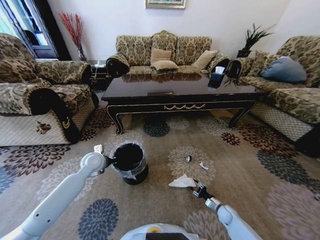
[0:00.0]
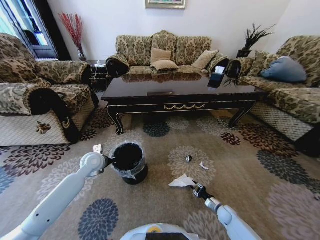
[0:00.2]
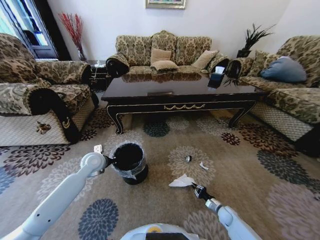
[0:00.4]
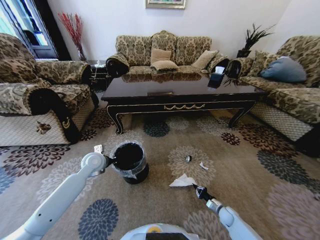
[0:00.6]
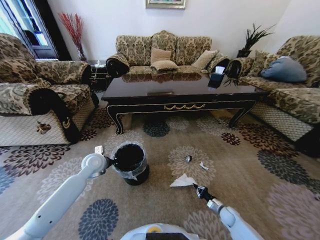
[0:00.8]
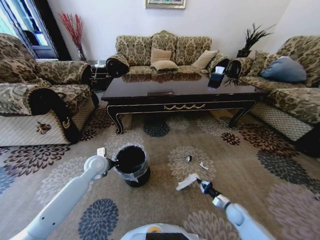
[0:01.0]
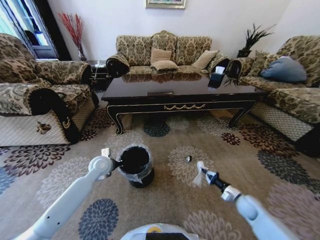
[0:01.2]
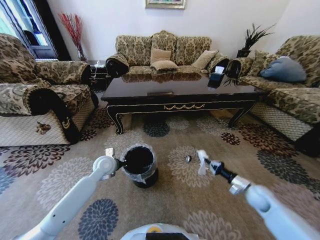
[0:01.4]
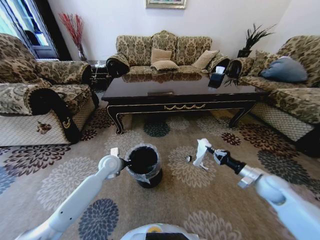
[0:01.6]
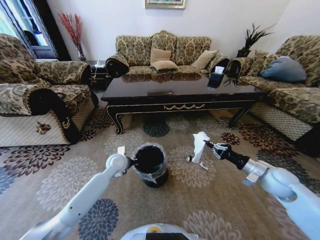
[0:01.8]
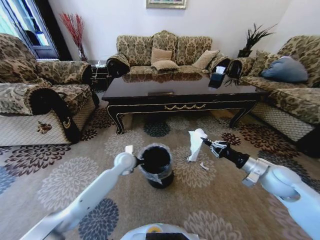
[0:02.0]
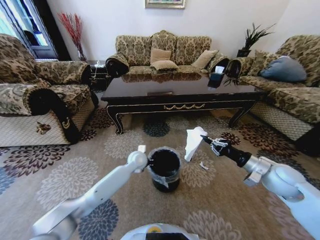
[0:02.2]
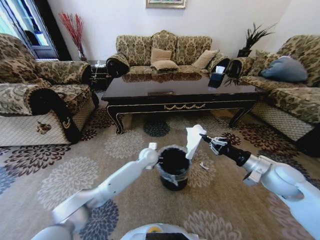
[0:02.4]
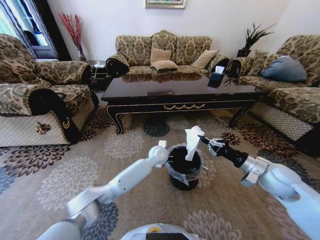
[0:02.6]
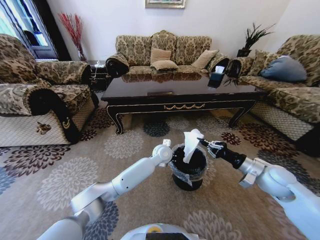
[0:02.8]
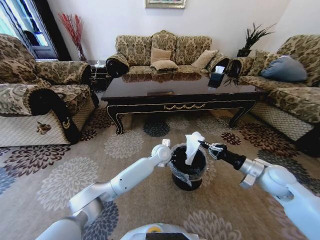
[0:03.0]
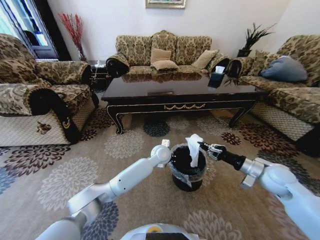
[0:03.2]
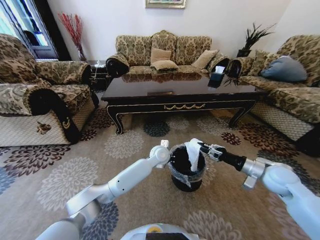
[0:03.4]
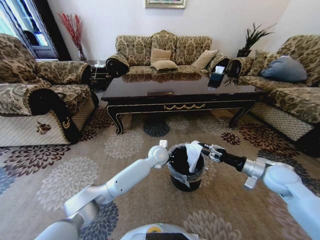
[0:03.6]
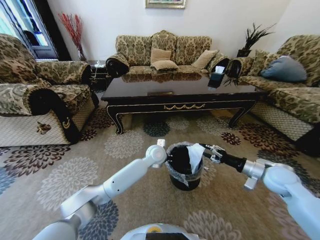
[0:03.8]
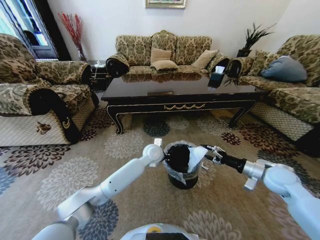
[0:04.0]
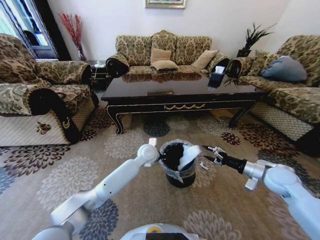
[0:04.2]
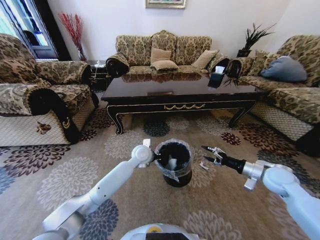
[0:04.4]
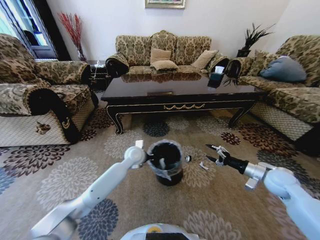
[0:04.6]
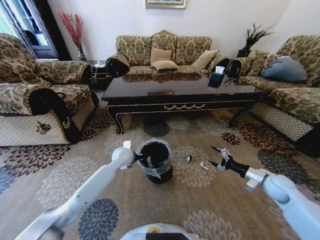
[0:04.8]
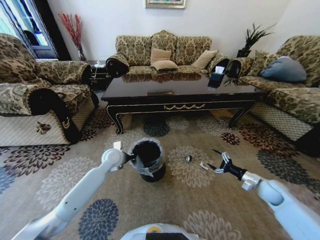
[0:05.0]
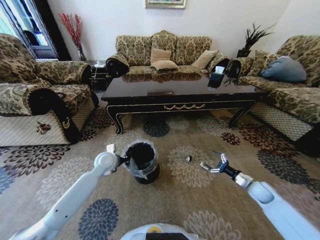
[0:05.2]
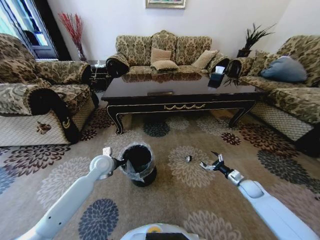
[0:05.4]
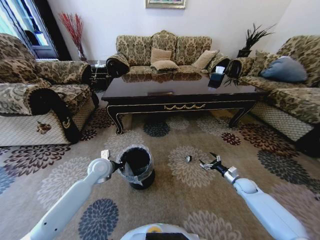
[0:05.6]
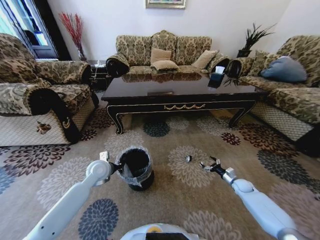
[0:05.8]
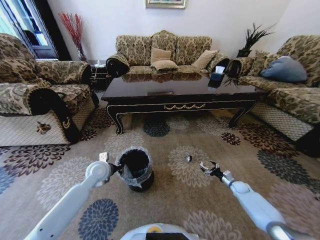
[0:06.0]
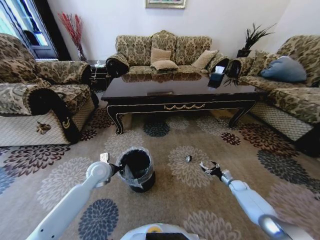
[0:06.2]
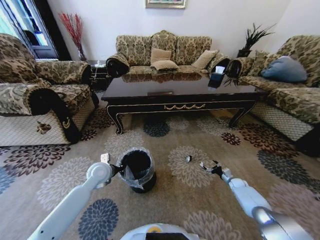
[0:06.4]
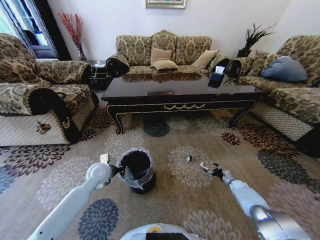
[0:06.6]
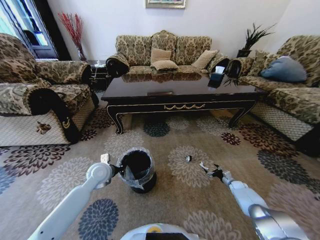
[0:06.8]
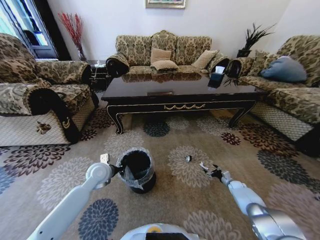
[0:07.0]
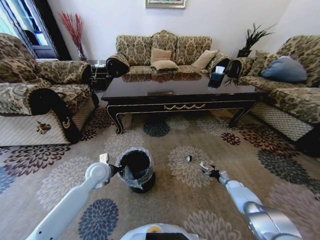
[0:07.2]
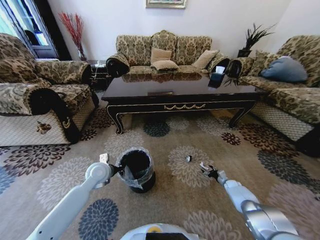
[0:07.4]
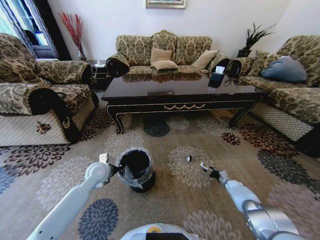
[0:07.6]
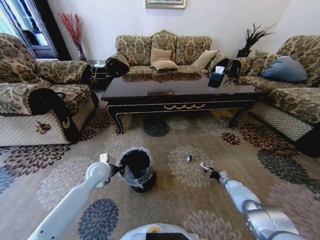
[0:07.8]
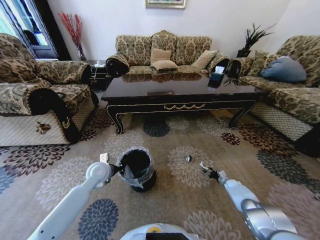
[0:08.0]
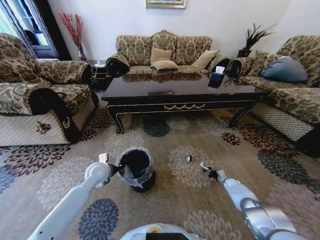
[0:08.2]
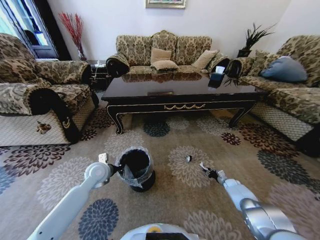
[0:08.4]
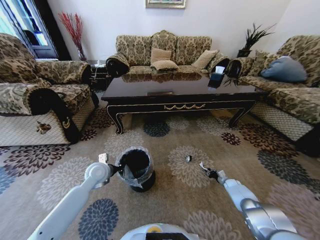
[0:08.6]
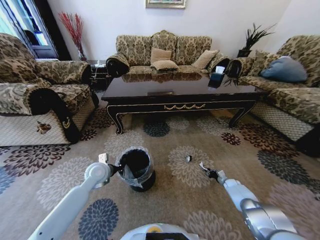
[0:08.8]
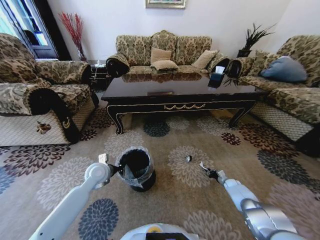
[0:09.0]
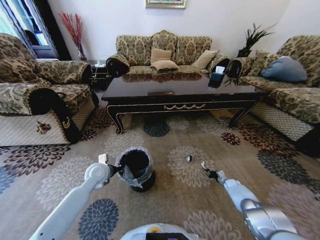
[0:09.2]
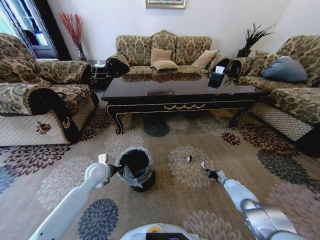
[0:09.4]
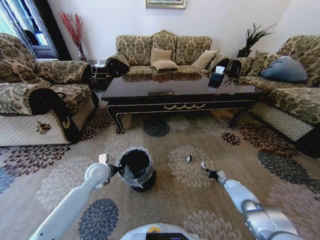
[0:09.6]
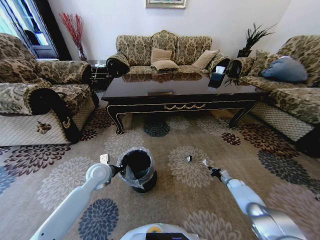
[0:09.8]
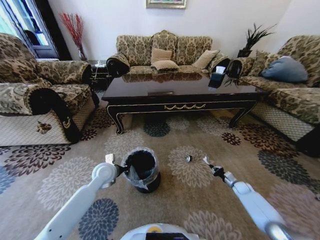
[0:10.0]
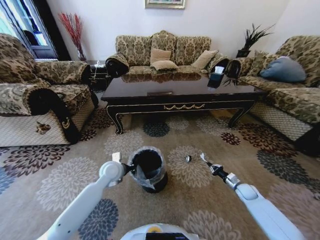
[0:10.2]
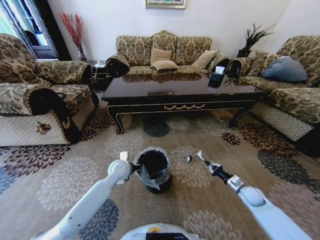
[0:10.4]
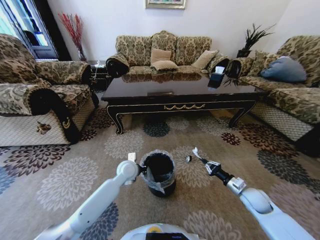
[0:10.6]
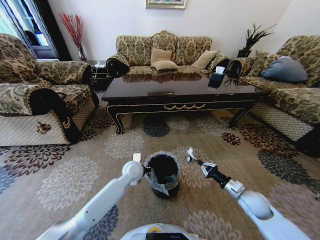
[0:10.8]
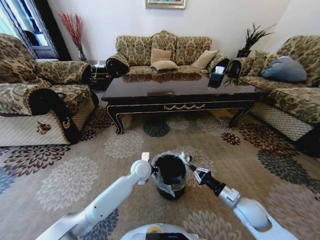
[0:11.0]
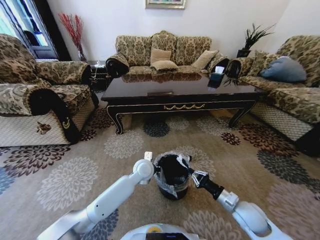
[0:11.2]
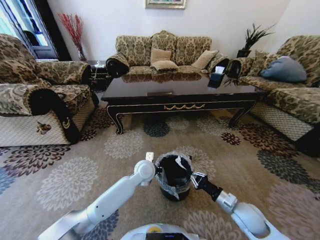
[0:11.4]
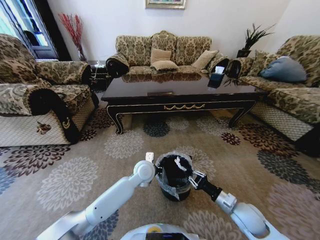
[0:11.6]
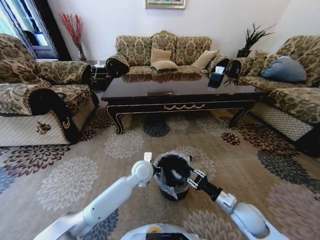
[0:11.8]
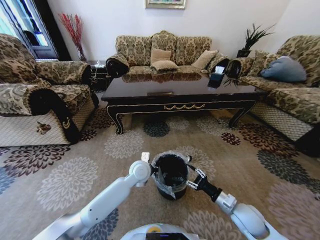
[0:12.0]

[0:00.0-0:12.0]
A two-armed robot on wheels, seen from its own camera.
Task of the whole recording: Move to the front of the table and pick up the trash from the floor, then place it into the trash bin.
0:00.0 to 0:01.6: The left gripper travels to the right by approximately 5 cm. Meanwhile the right gripper travels upward by about 30 cm, and closes.
0:01.6 to 0:03.0: The left gripper moves to the right, approximately 25 cm; the right gripper moves upward, approximately 5 cm.
0:03.0 to 0:04.4: The left gripper is displaced to the left by roughly 10 cm, while the right gripper opens its fingers.
0:04.4 to 0:06.0: The left gripper is displaced to the left by roughly 20 cm, while the right gripper goes some 30 cm downward.
0:06.0 to 0:07.6: The right gripper changes place by some 5 cm, and closes up.
0:07.6 to 0:09.0: The right gripper closes up.
0:09.0 to 0:10.4: The right gripper goes approximately 15 cm upward and backward, while the left gripper heads to the right, covering some 10 cm.
0:10.4 to 0:12.0: The right gripper shifts approximately 20 cm to the left, backward and upward, and opens. The left gripper is displaced to the right by about 10 cm.

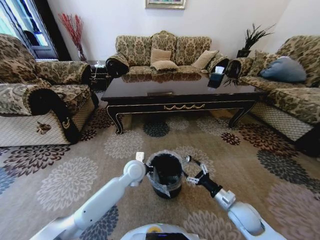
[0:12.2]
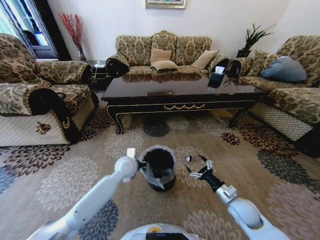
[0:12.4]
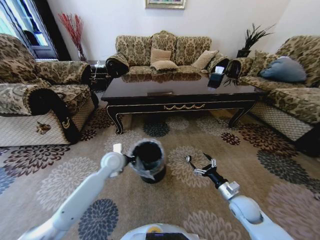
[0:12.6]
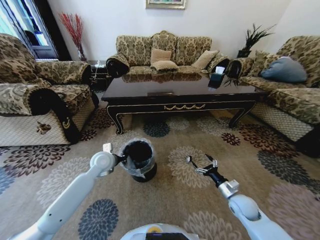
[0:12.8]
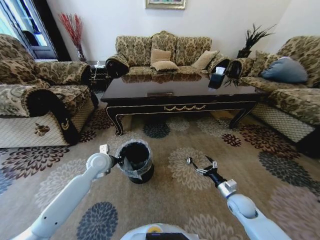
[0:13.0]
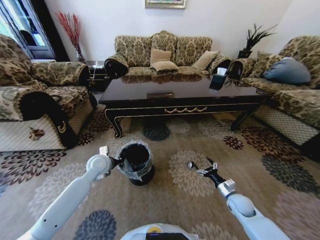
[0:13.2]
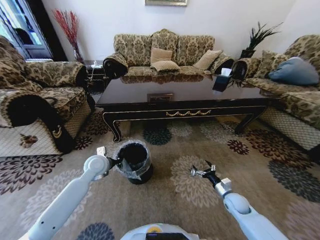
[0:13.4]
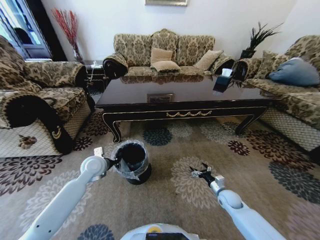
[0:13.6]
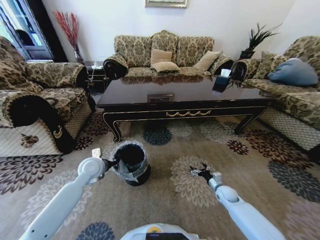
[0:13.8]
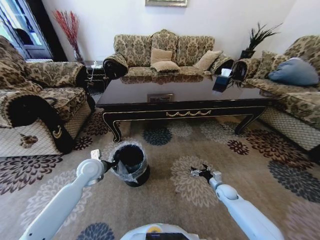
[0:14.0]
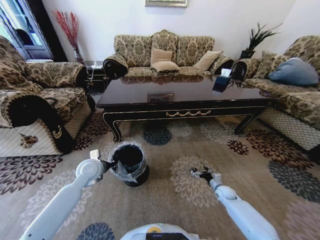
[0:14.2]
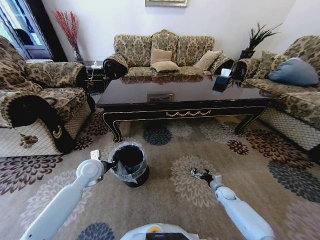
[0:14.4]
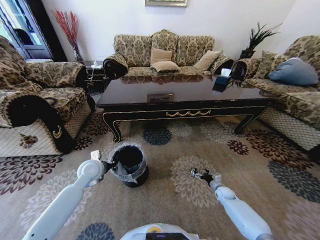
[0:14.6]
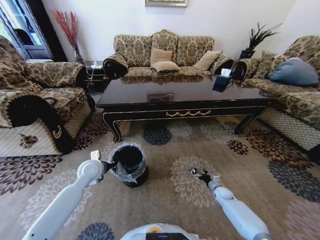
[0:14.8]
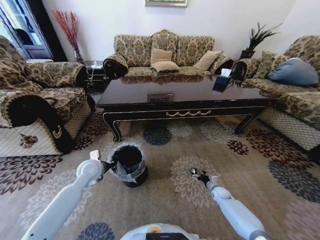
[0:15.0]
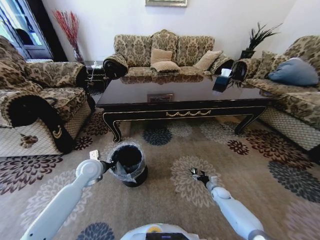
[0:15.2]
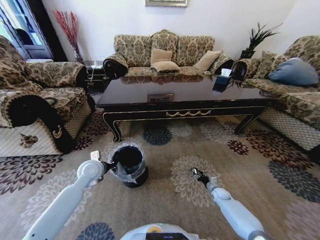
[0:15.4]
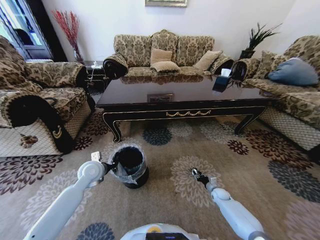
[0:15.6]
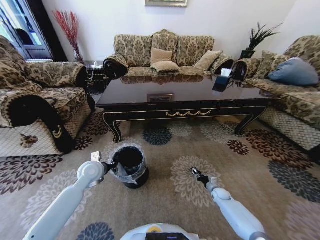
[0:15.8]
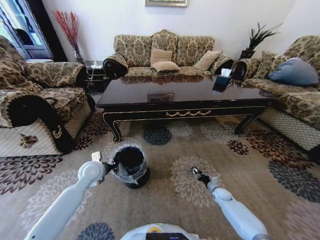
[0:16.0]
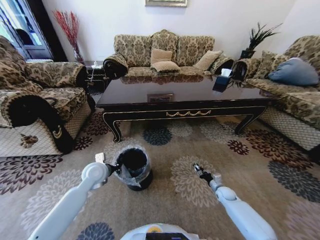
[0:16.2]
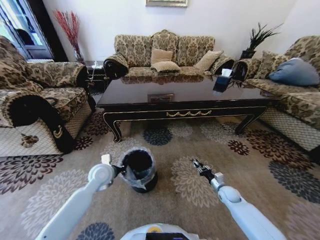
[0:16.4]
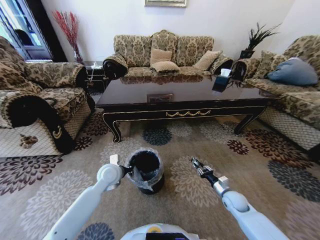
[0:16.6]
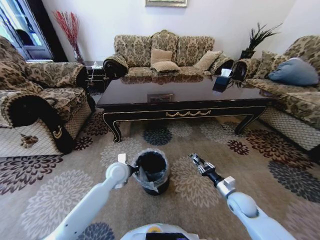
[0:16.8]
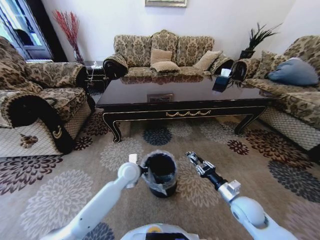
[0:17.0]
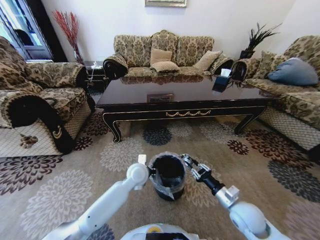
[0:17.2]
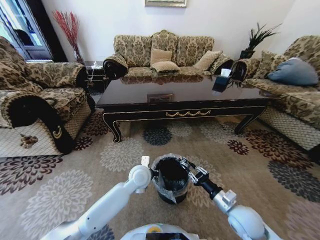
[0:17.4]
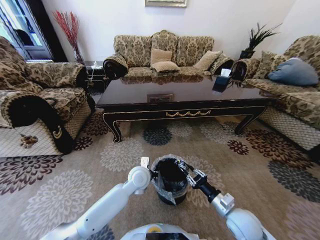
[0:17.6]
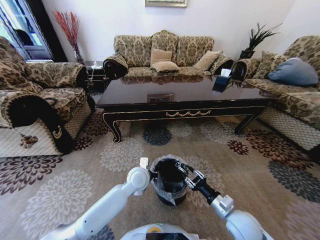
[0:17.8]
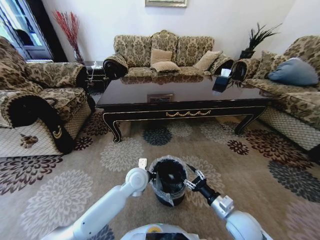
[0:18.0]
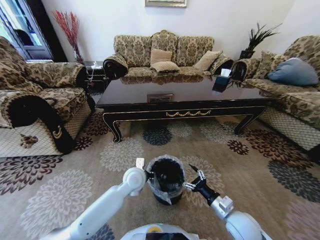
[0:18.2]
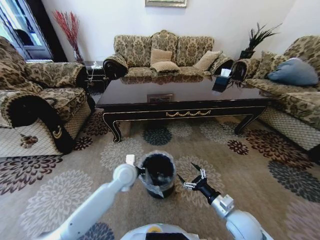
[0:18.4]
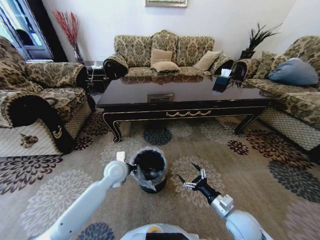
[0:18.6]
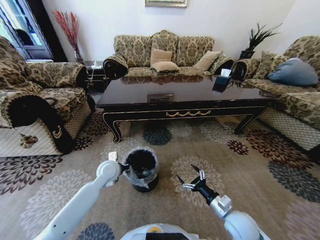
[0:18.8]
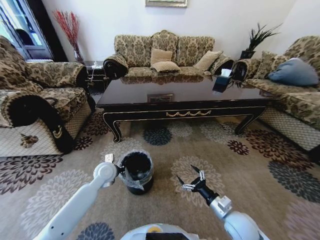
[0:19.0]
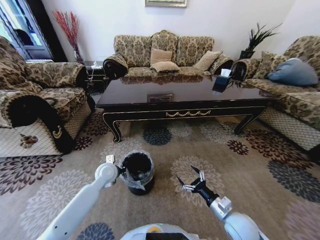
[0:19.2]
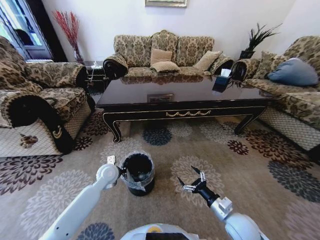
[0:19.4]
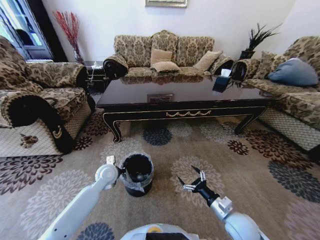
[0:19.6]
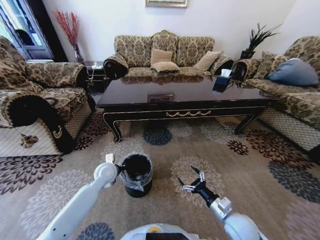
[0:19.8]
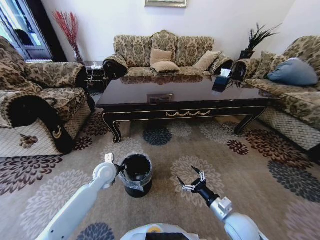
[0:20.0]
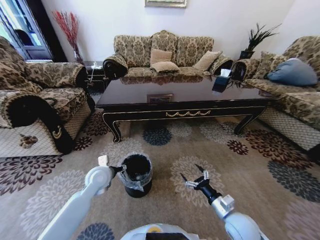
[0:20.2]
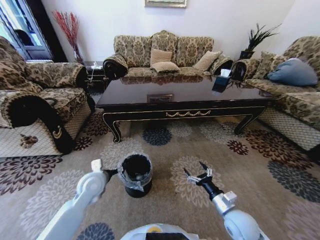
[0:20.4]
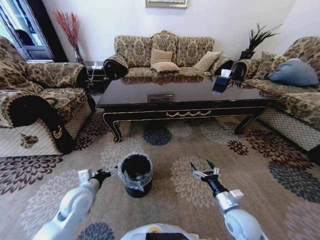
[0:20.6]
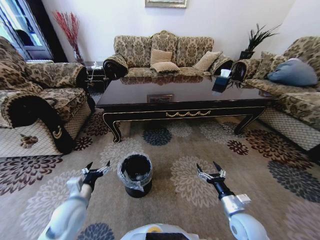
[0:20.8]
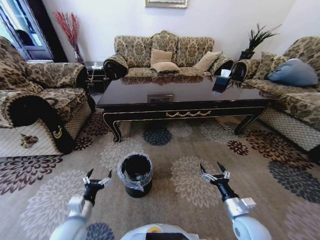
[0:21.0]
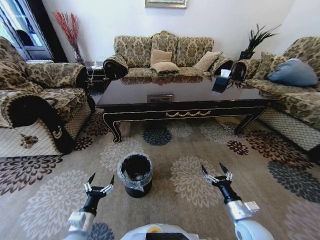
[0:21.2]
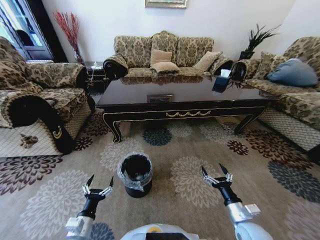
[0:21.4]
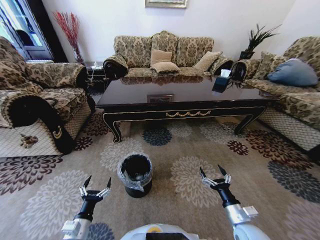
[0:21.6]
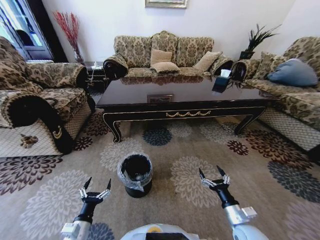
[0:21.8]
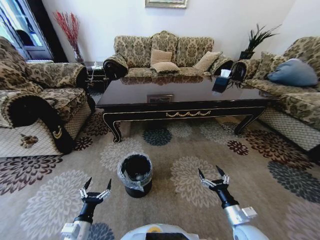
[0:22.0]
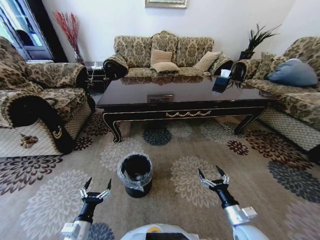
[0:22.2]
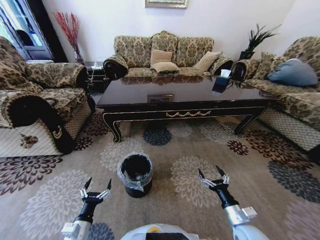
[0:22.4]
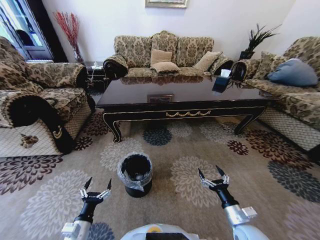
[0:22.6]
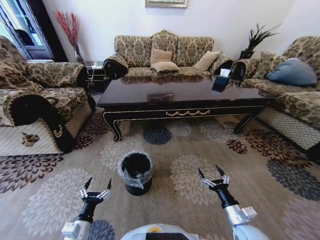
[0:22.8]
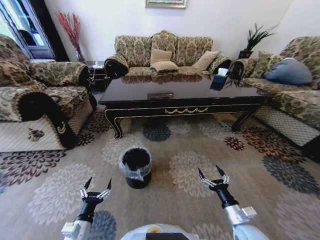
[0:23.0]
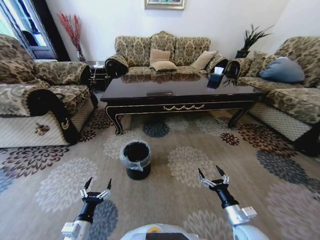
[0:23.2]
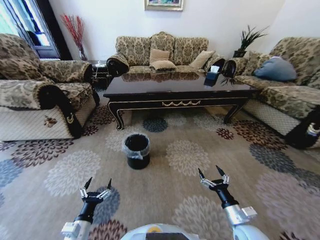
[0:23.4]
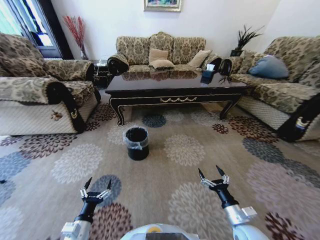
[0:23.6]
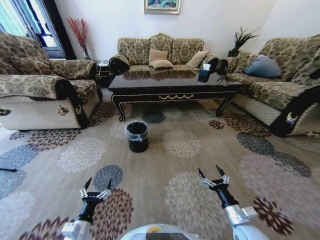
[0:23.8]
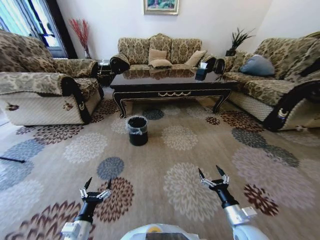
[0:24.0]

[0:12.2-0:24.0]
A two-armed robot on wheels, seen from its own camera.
Task of the whole recording: Move to the front of the table and pick up the trash from the floor, then place it into the trash bin.
0:12.2 to 0:13.6: The right gripper shifts about 15 cm downward and forward, while the left gripper goes approximately 20 cm to the left.
0:13.6 to 0:15.2: The right gripper goes about 10 cm downward and forward.
0:15.2 to 0:16.6: The right gripper moves upward and backward, roughly 15 cm, and closes up. The left gripper goes about 10 cm to the right.
0:16.6 to 0:18.2: The right gripper is displaced backward, upward and to the left by some 15 cm, and opens up. Meanwhile the left gripper is displaced to the right by approximately 10 cm.
0:18.2 to 0:19.6: The left gripper heads to the left, covering some 15 cm.
0:19.6 to 0:21.0: The left gripper goes approximately 20 cm backward, and opens up.
0:21.0 to 0:22.6: The left gripper moves backward, approximately 5 cm.
